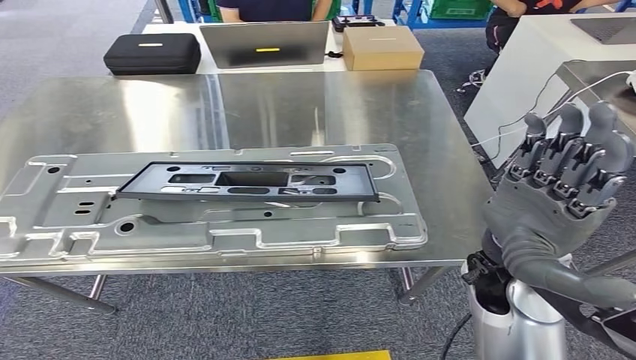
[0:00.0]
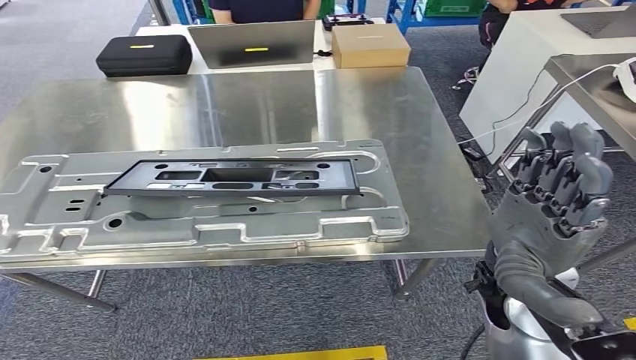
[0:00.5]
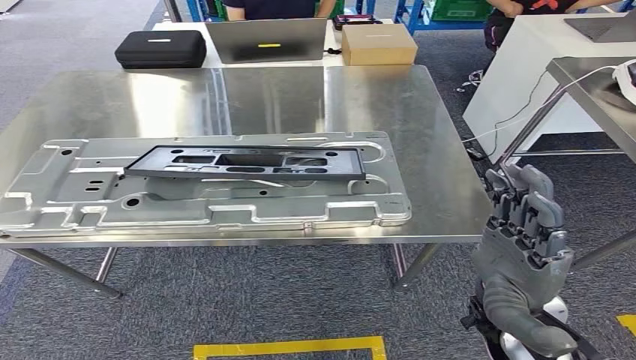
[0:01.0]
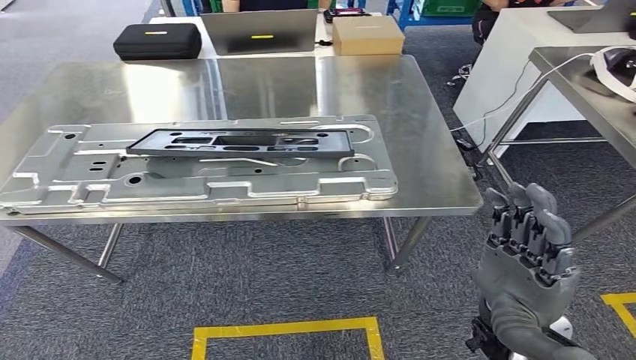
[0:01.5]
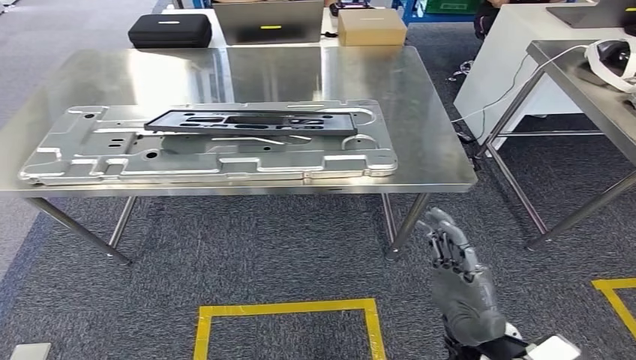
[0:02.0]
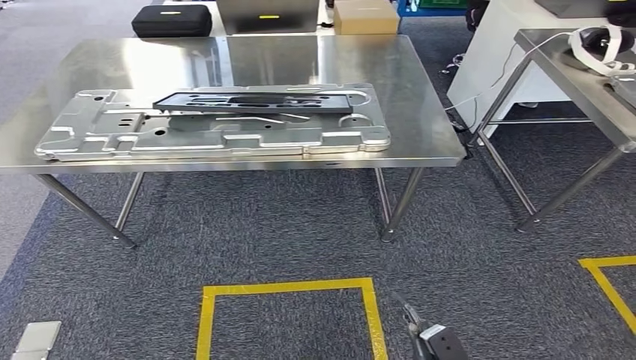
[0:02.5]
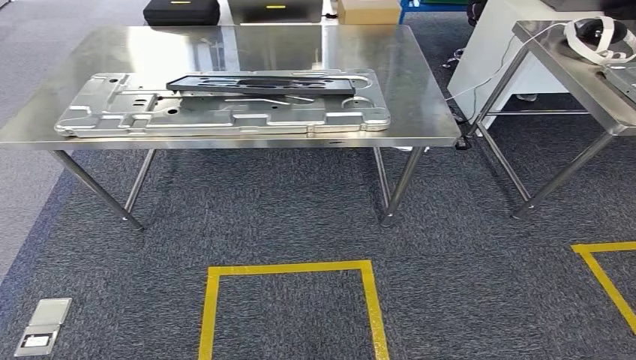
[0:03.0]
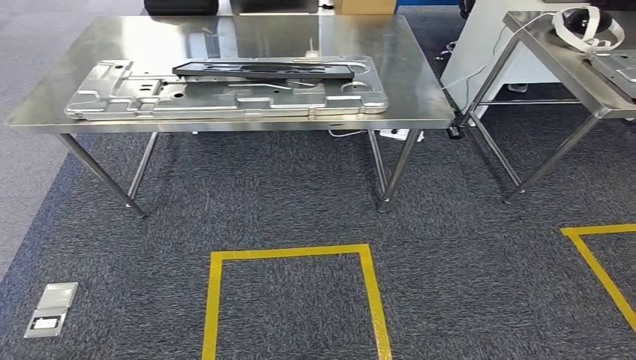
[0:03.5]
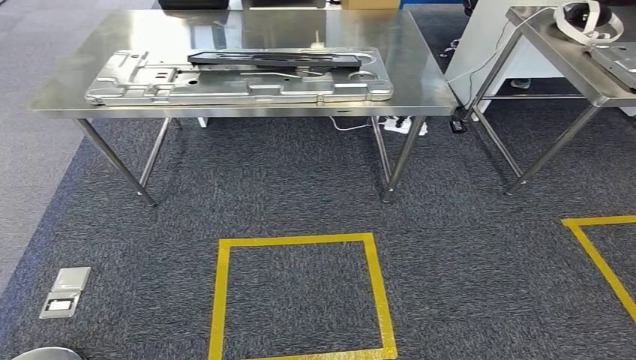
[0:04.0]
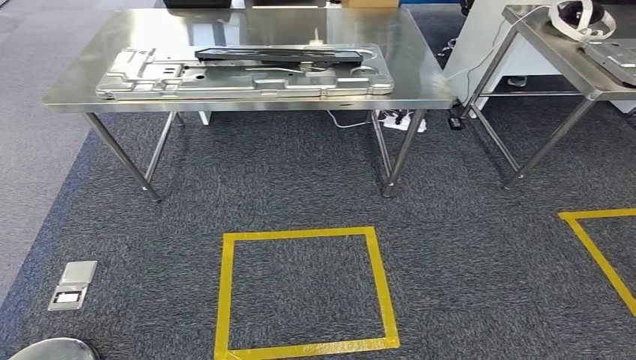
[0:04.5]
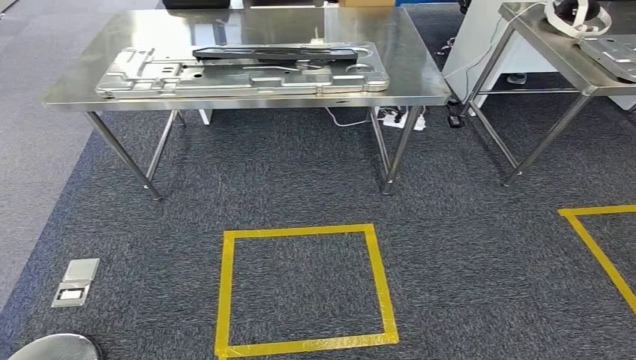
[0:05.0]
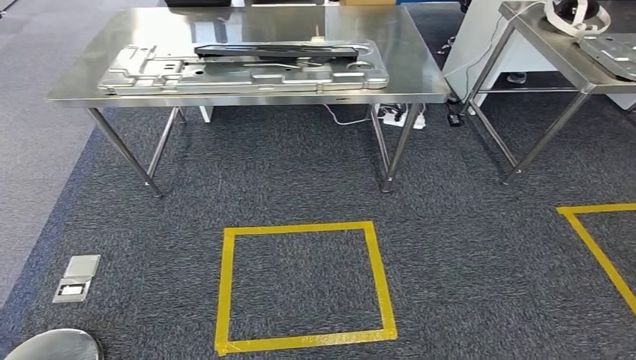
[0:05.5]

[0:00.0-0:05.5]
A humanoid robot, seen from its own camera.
Step, 0:00.5 to 0:05.5: Move to the initial position at the workbench.
